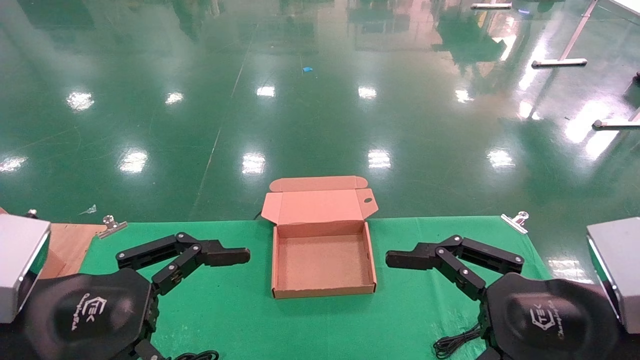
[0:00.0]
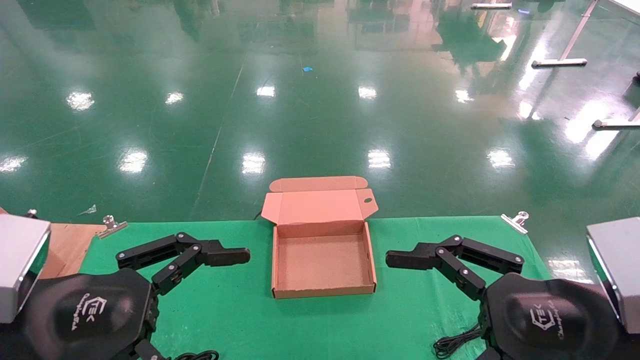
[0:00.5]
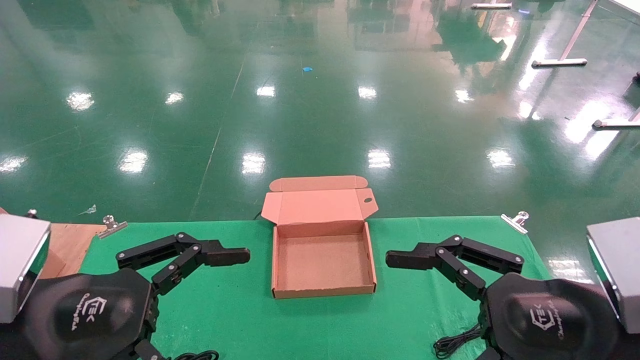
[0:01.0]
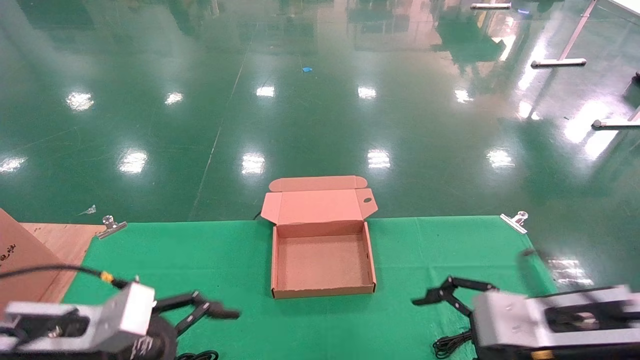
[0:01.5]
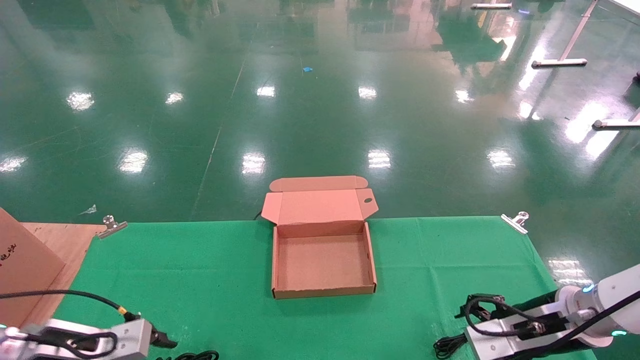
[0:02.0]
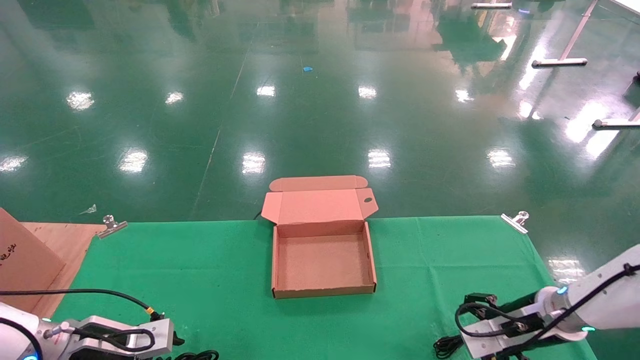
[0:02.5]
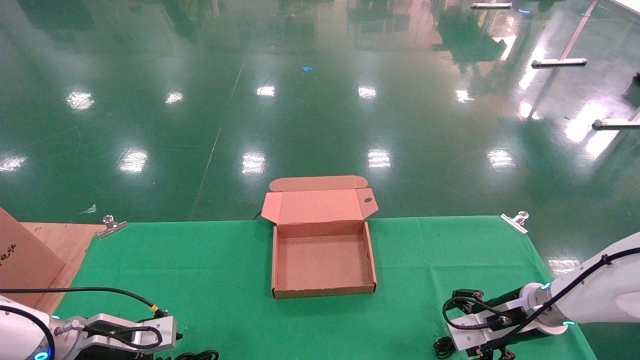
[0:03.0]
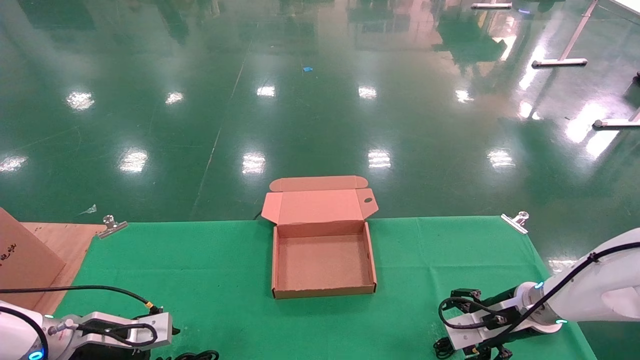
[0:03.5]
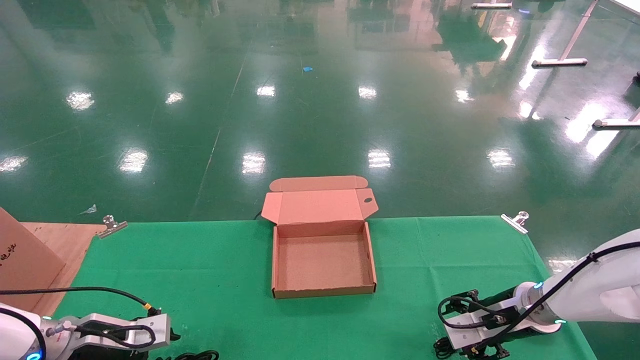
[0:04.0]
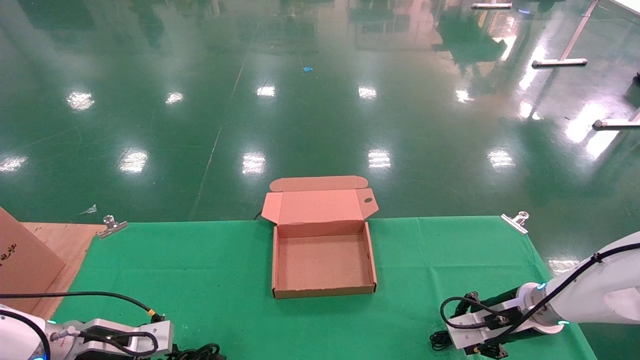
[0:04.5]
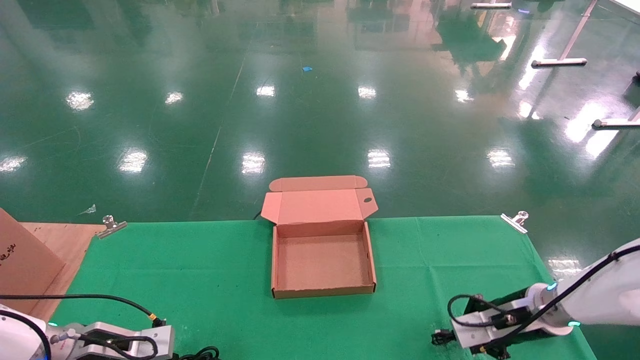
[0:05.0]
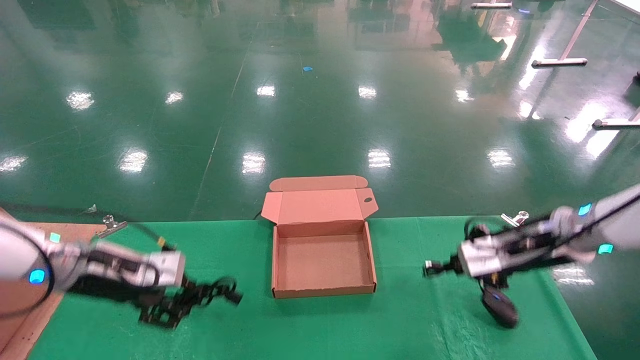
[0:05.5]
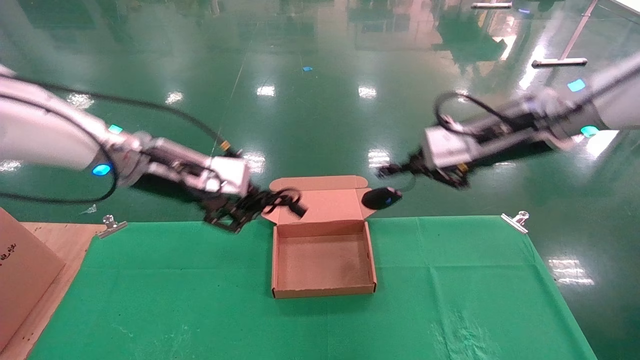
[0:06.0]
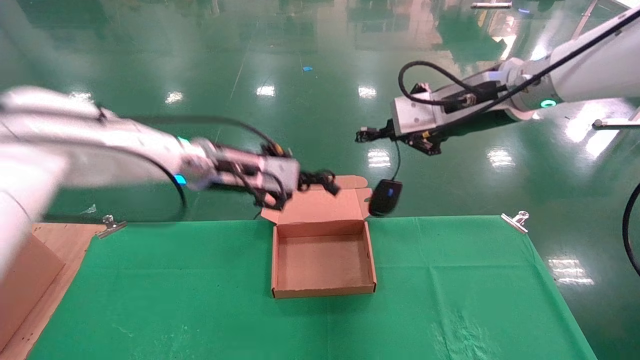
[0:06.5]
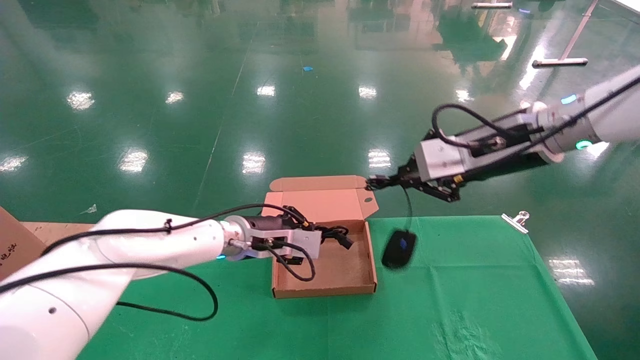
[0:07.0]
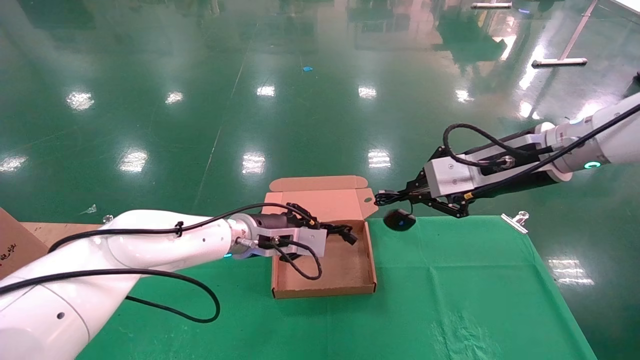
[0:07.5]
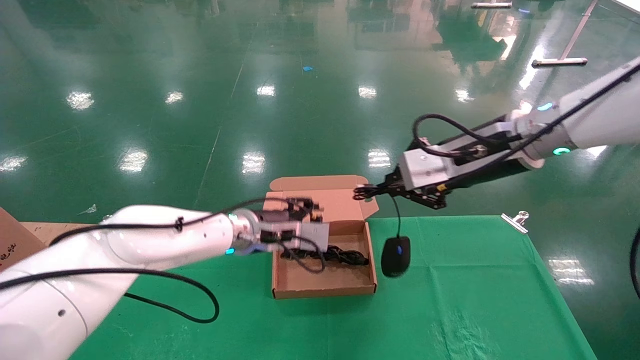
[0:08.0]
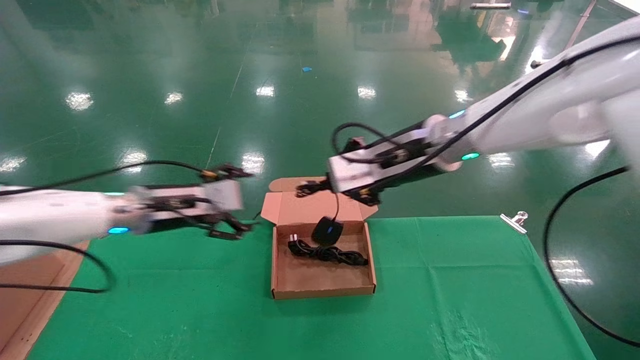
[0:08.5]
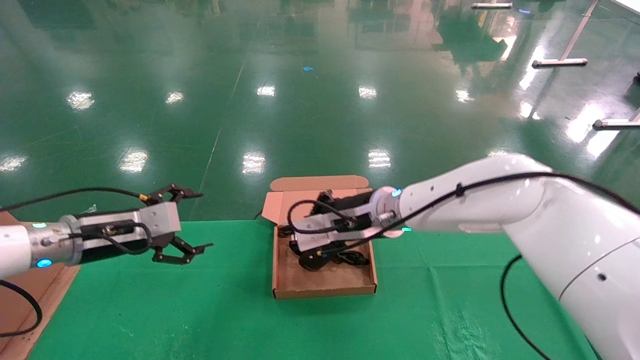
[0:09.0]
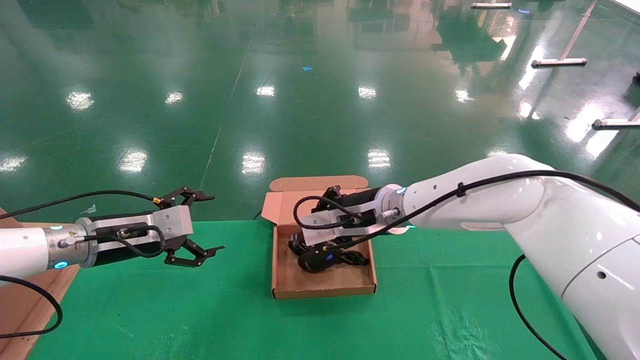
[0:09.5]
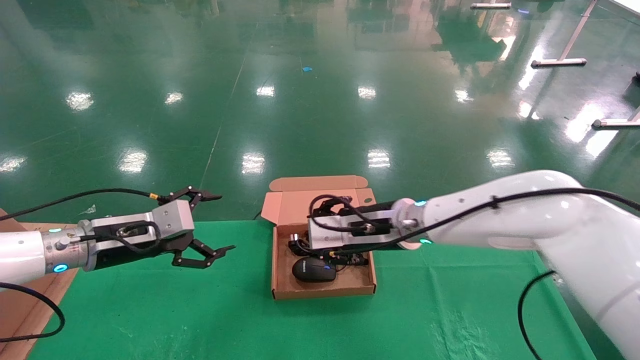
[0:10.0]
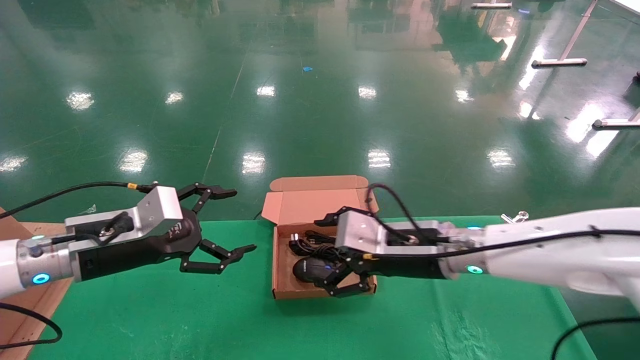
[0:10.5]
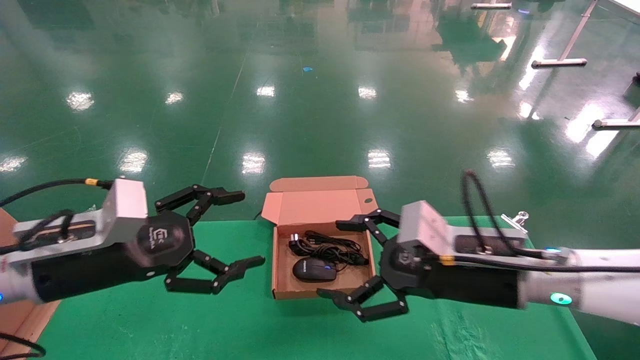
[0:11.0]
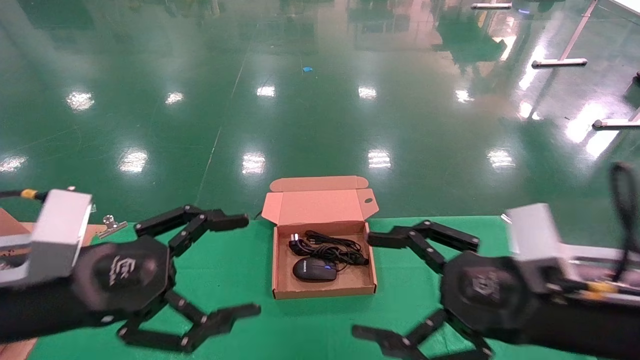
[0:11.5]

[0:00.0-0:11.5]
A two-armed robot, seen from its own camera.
Step, 0:02.0 to 0:04.5: Grab and lift both the mouse and power cord from the accessory packaging area at the same time.
Step, 0:05.0 to 0:10.0: Place the mouse and power cord into the box.
0:00.0 to 0:02.0: The right gripper heads forward and downward, covering some 20 cm. The left gripper is displaced downward, forward and to the left by some 20 cm.
0:02.0 to 0:04.0: The grippers both shift forward by some 5 cm.
0:04.0 to 0:06.0: The right gripper heads upward, covering approximately 30 cm, and closes its fingers. The left gripper moves upward and to the right, roughly 30 cm, and closes up.
0:06.0 to 0:07.5: The left gripper heads downward, to the right and forward, covering roughly 20 cm.
0:07.5 to 0:09.5: The left gripper heads to the left, covering roughly 20 cm, and opens; the right gripper is displaced to the left and downward by approximately 20 cm.
0:09.5 to 0:11.5: The right gripper moves backward and to the right, about 30 cm, and opens up; the left gripper goes about 20 cm backward.
